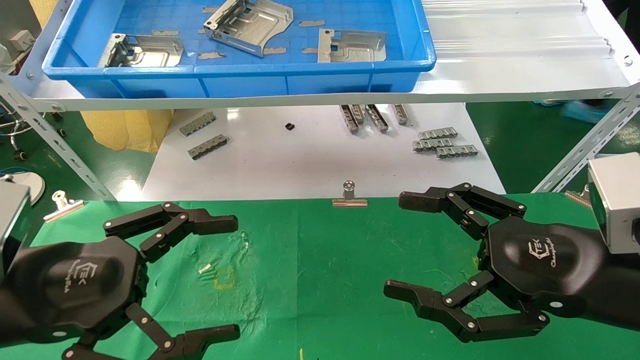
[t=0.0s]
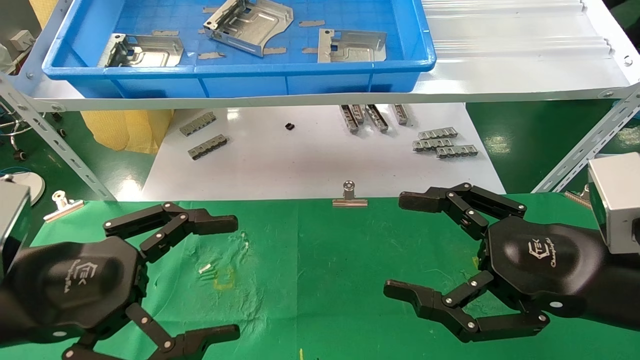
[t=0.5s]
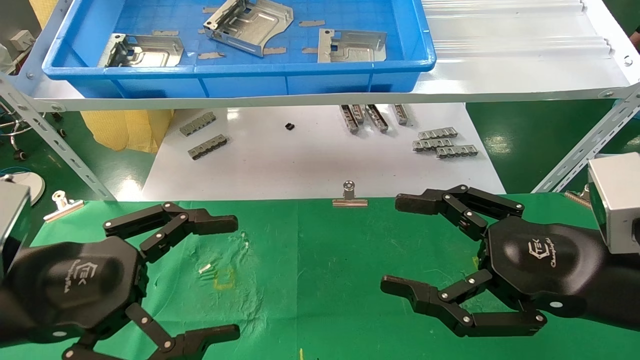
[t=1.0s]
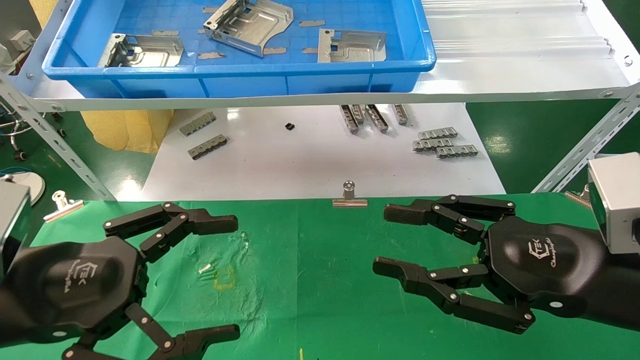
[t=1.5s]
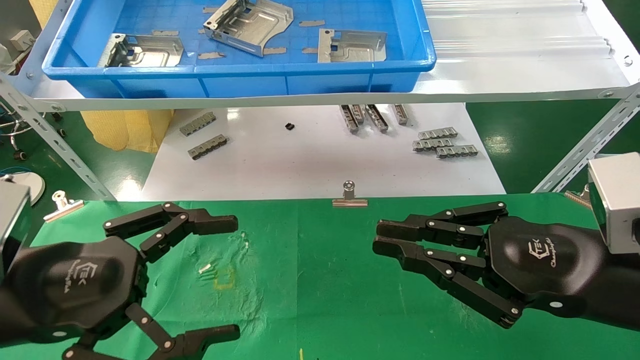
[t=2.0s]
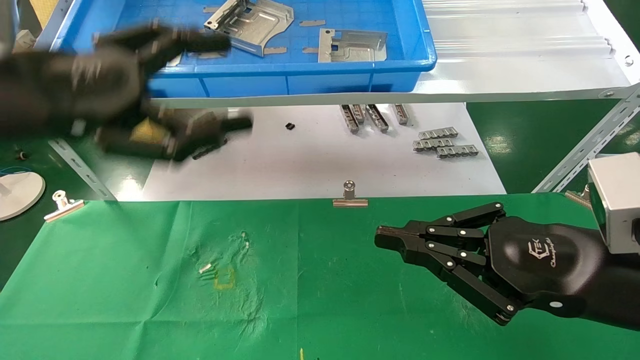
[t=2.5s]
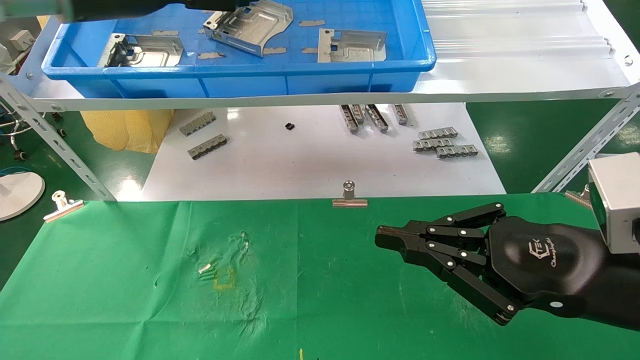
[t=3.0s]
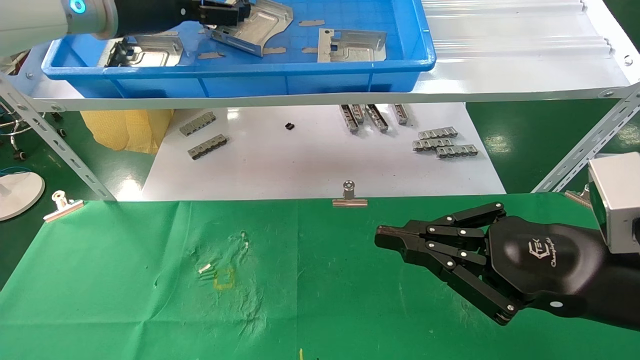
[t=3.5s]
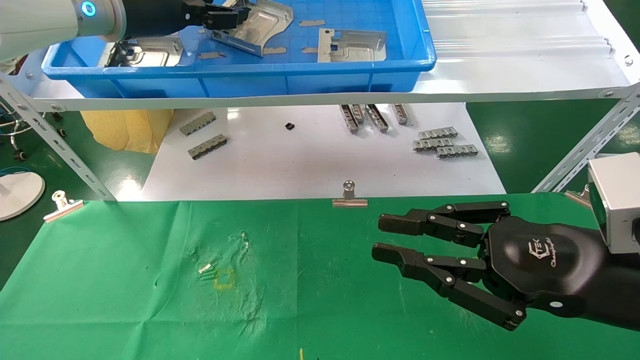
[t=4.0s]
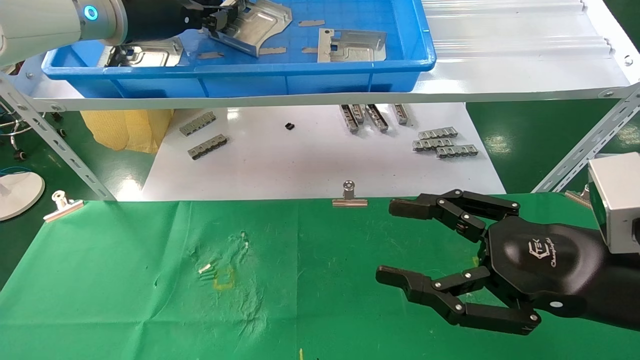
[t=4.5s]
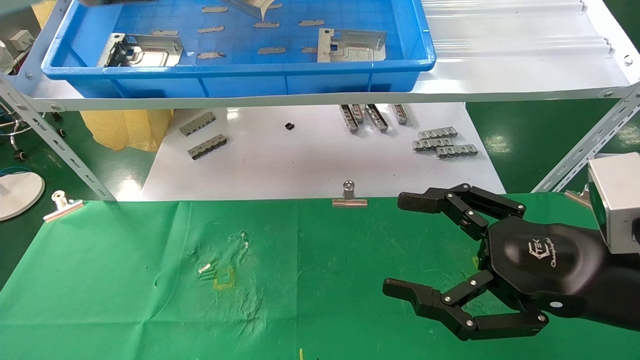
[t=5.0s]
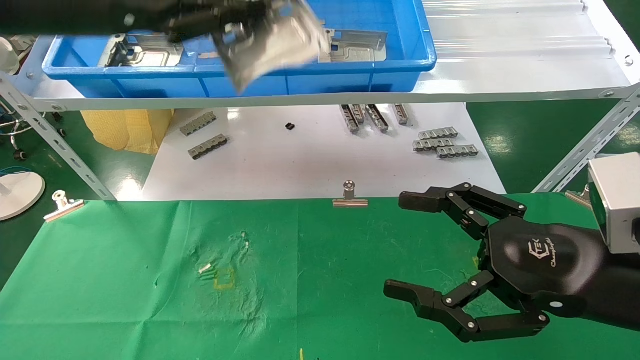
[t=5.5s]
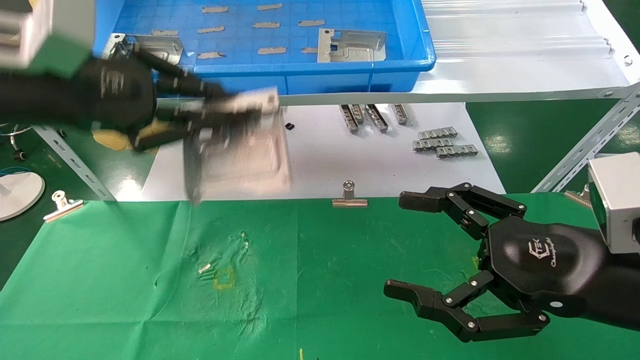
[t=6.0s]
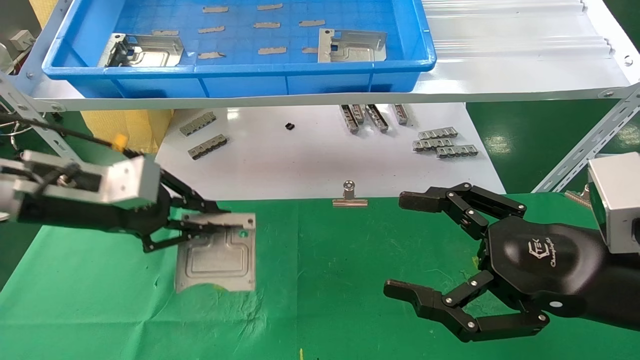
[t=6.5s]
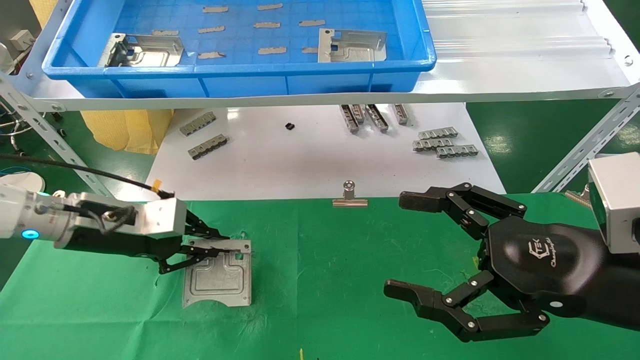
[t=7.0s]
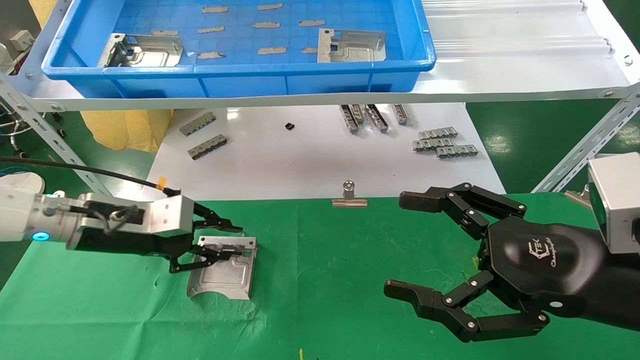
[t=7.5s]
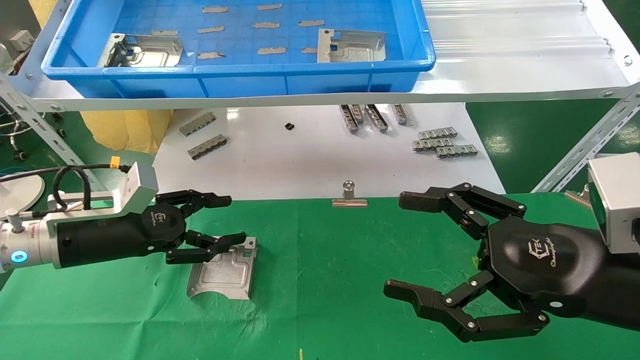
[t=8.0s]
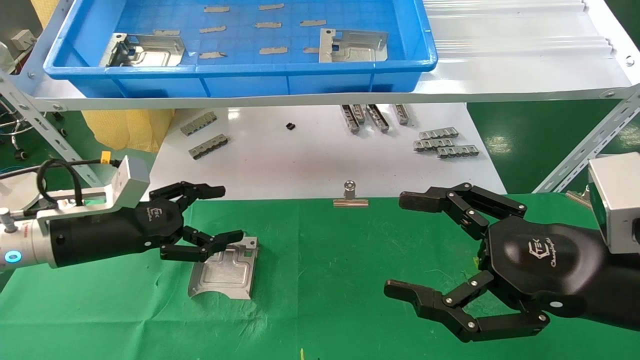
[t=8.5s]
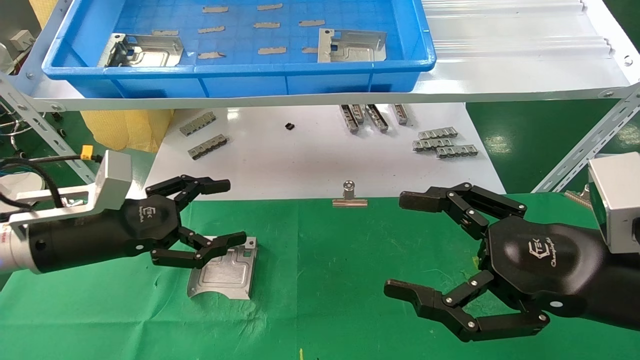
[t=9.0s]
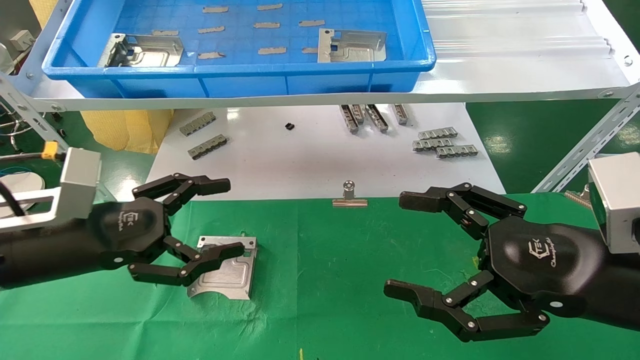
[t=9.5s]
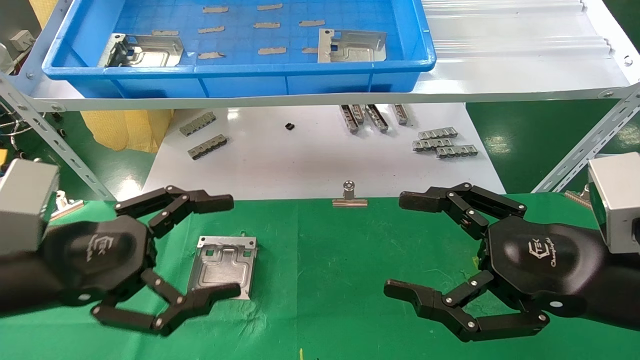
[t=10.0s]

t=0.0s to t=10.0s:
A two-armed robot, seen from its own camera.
Task of the whole recording: use the mechanical arm to pick up the parts and place them on the table.
Step, t=1.5s to t=4.5s: Pick up the hard drive bracket from the feeding area.
Step, t=5.0s to t=7.5s: Place the hard drive bracket into the box.
t=0.0s to t=2.0s: The right gripper closes up.
t=2.0s to t=4.0s: The left gripper shifts about 30 cm forward and upward.
t=4.0s to t=6.0s: The left gripper goes roughly 15 cm backward and downward, and closes its fingers; the right gripper opens up.
t=6.0s to t=8.0s: The left gripper heads downward, covering some 20 cm, and opens its fingers.
t=8.0s to t=10.0s: The left gripper heads backward, covering about 15 cm, and opens.
